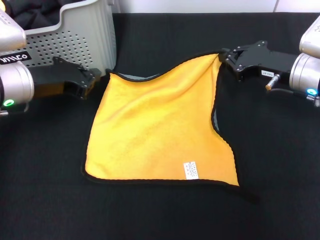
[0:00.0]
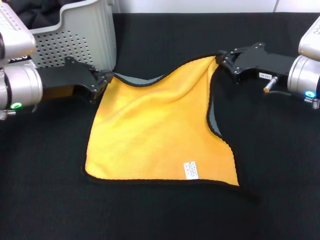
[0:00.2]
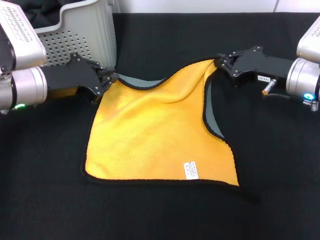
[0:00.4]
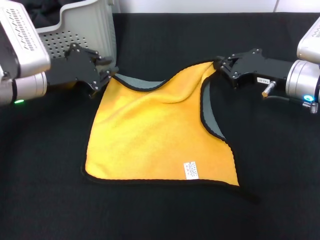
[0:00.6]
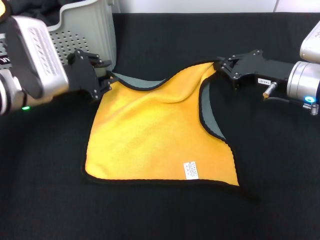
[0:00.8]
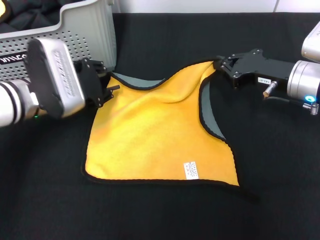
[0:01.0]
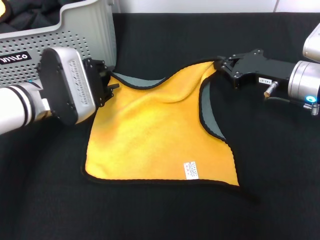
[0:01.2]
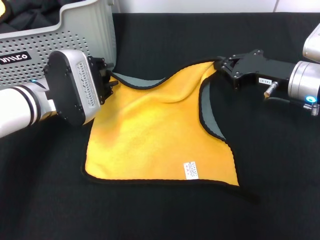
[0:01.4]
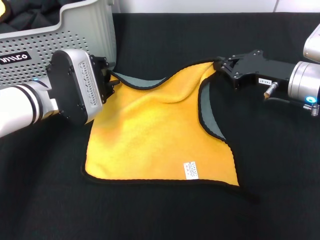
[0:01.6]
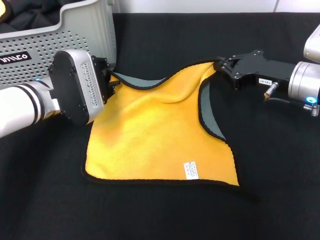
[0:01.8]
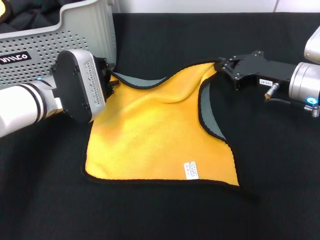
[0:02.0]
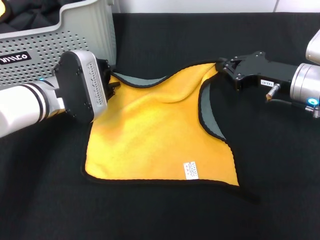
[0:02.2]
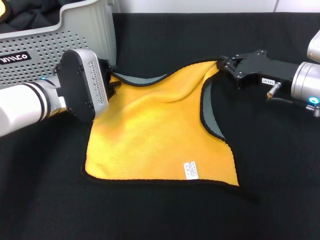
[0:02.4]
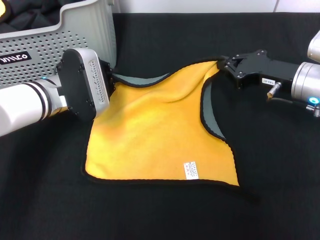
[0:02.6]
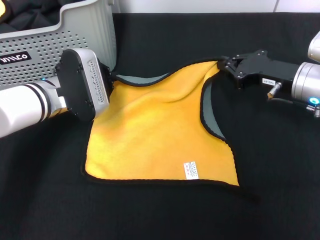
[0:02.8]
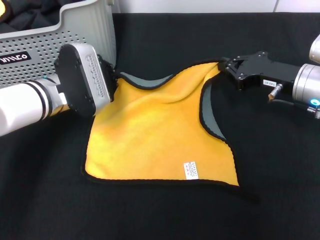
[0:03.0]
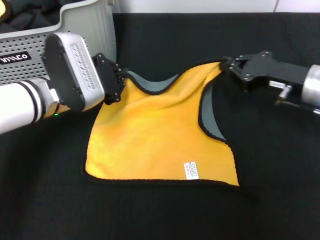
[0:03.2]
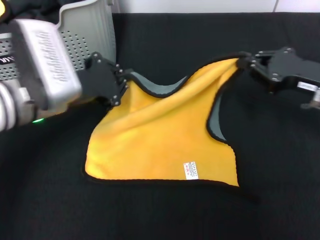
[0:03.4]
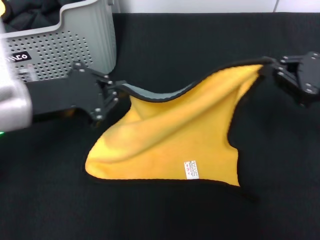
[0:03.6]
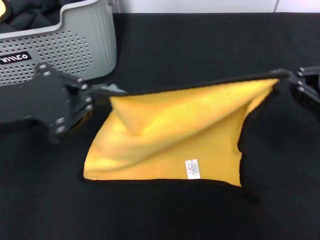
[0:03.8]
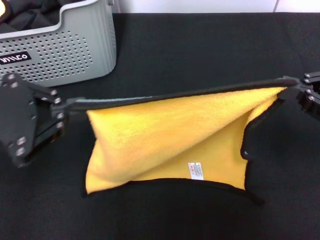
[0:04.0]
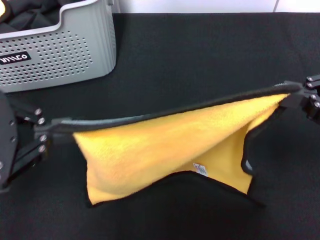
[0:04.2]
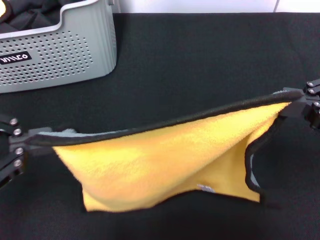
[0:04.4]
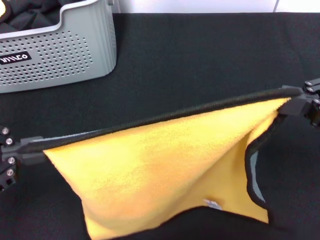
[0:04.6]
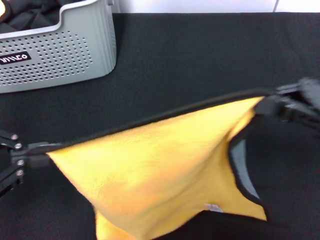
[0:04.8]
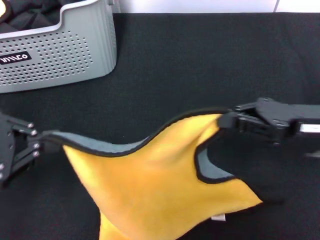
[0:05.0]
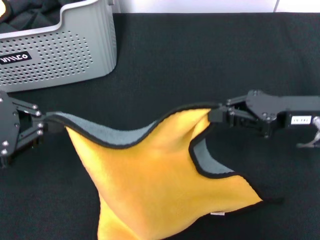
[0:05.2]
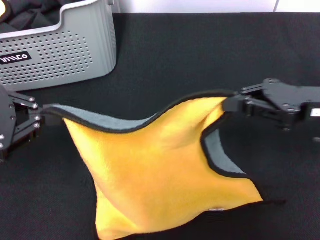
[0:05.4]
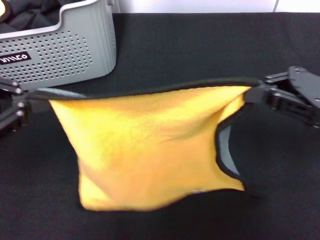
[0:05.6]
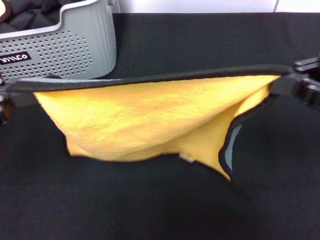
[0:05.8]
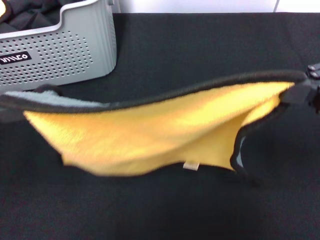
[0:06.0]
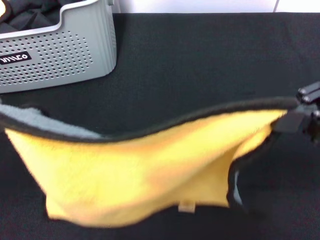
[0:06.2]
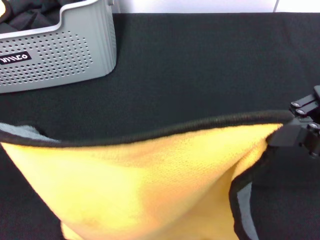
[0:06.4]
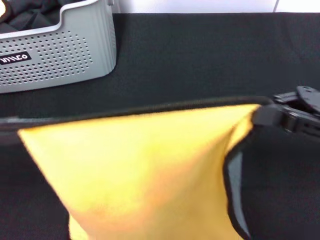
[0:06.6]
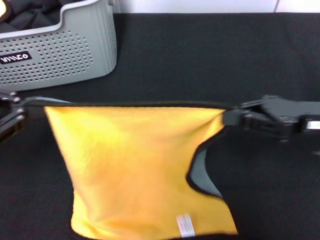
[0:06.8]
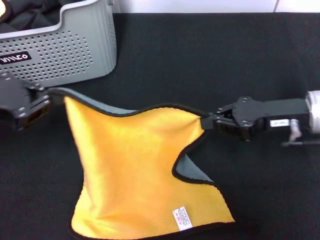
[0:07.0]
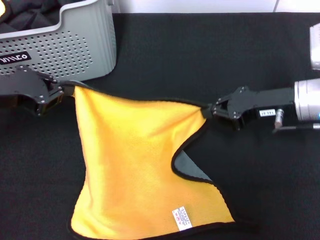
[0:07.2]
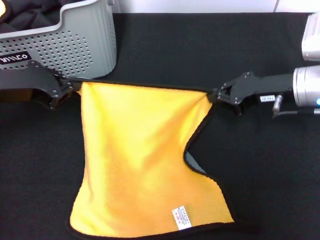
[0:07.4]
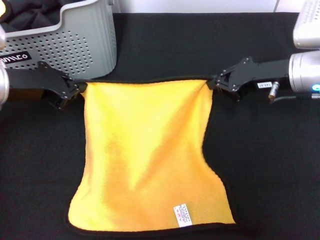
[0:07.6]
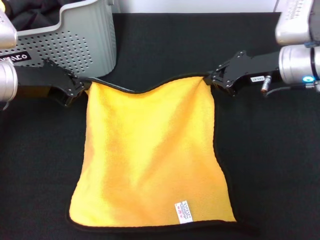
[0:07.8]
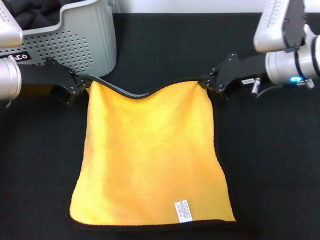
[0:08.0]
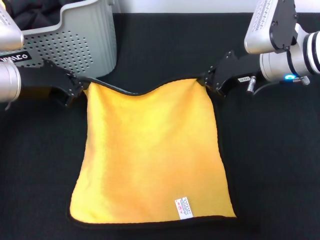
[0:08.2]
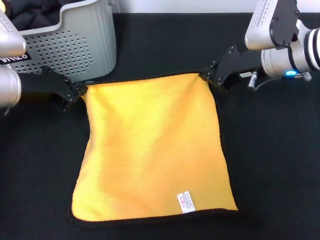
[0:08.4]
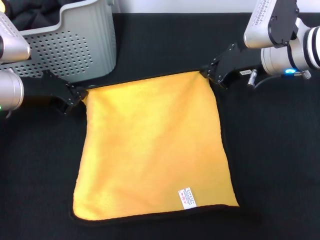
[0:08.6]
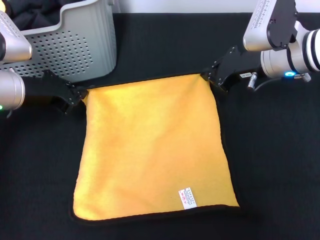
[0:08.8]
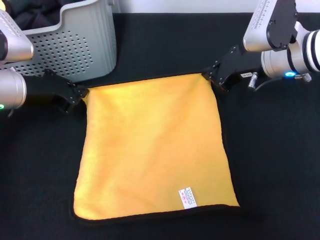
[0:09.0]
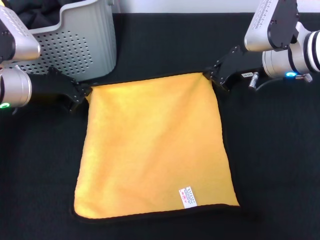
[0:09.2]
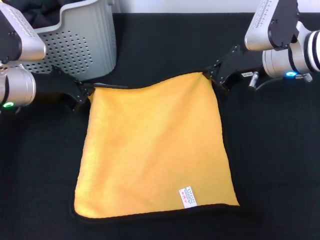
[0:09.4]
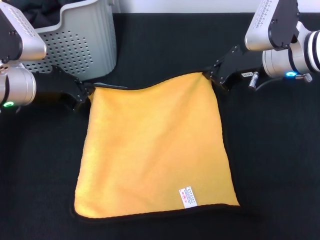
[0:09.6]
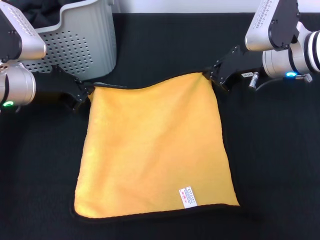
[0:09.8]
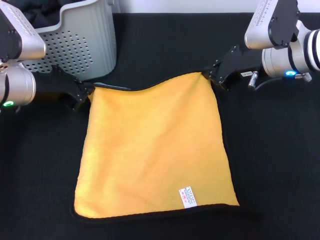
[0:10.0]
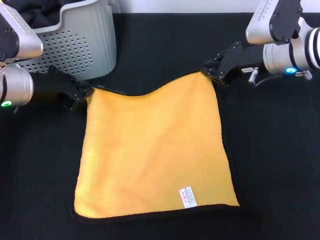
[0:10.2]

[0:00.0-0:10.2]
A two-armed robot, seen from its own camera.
Task of the whole recording: pick up the towel from the storage box and lay it flat on the black tablecloth.
0:00.0 to 0:01.4: The left gripper shifts about 5 cm to the right, and opens its fingers.
0:01.4 to 0:03.0: The left gripper closes.
0:03.0 to 0:04.4: The right gripper shifts approximately 15 cm backward, upward and to the right, while the left gripper moves backward, upward and to the left, some 30 cm.
0:05.8 to 0:07.2: The right gripper is displaced downward, forward and to the left by about 15 cm; the left gripper moves forward and downward, some 15 cm.
0:07.2 to 0:08.8: The left gripper moves approximately 10 cm, while the right gripper is displaced forward by approximately 5 cm.
0:08.8 to 0:10.2: There are only small adjustments of the grippers.

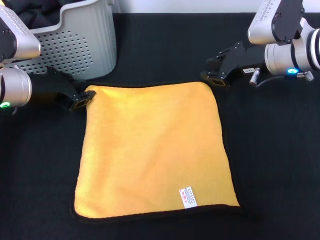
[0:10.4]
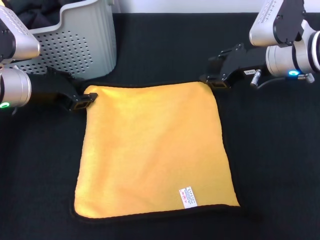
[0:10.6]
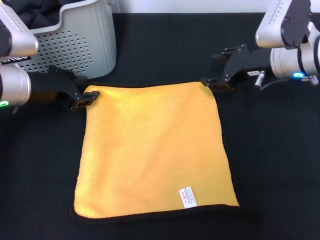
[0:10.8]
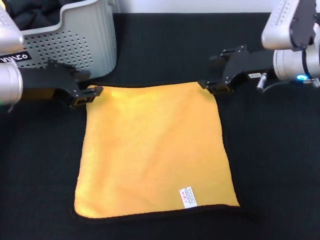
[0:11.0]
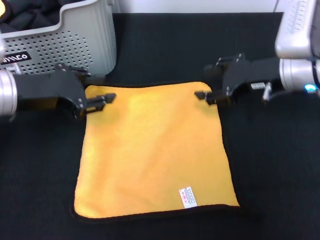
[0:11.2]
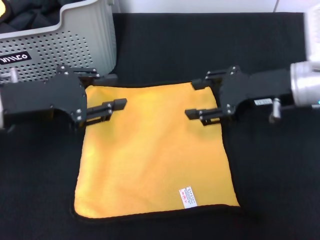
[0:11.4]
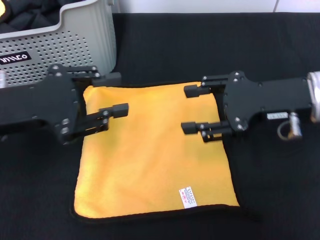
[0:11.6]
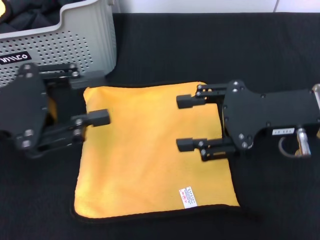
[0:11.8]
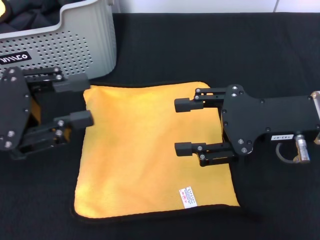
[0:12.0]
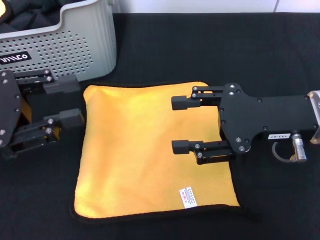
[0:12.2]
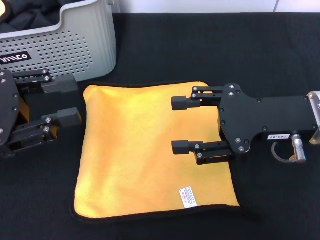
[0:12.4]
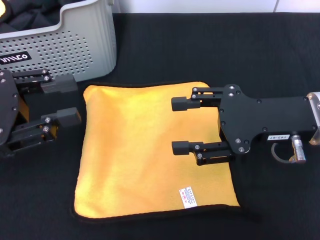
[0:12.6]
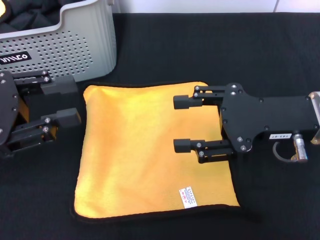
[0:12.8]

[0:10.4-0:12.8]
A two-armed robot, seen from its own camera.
Task of the whole recording: pick up the towel from the storage box and lay it flat on the black tablecloth.
0:10.4 to 0:11.6: The right gripper shifts about 10 cm backward, and opens its fingers; the left gripper goes about 10 cm backward and upward, and opens.
0:11.6 to 0:12.8: The left gripper shifts by about 5 cm.
